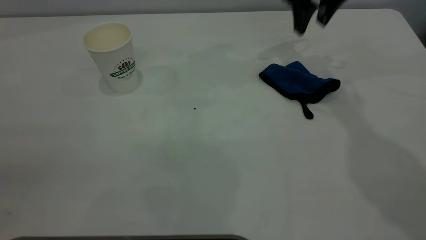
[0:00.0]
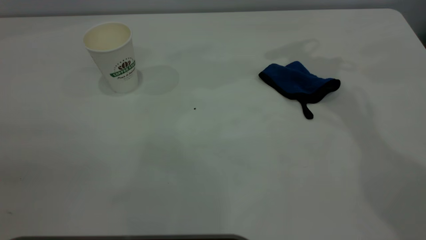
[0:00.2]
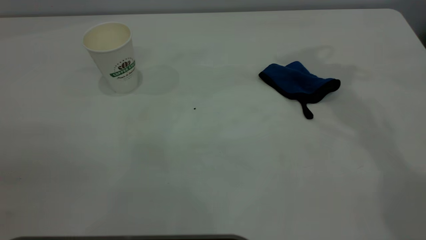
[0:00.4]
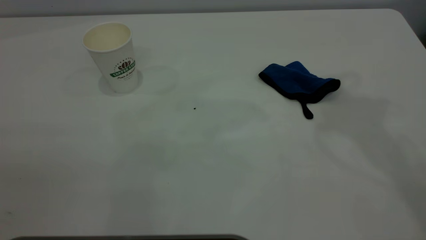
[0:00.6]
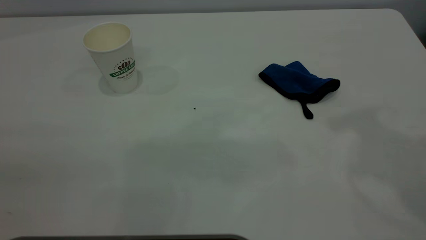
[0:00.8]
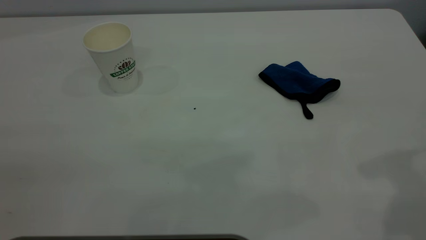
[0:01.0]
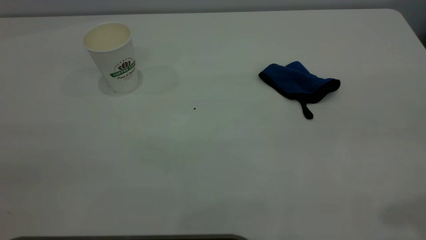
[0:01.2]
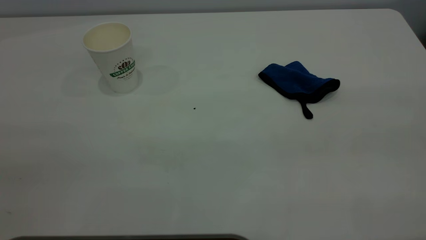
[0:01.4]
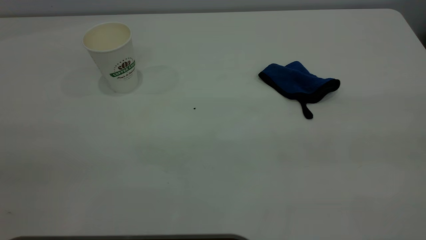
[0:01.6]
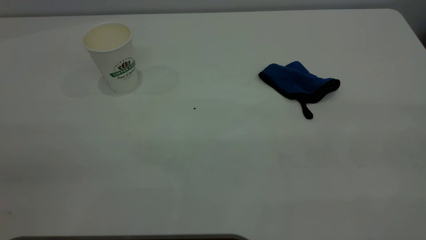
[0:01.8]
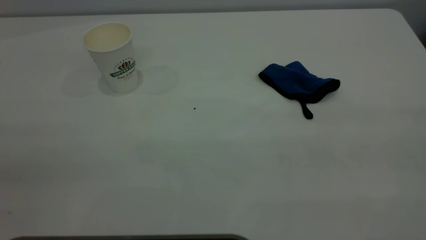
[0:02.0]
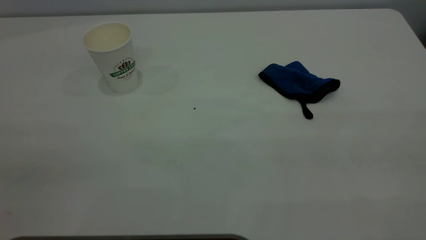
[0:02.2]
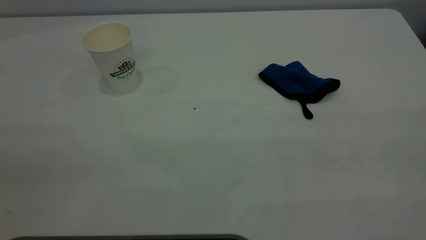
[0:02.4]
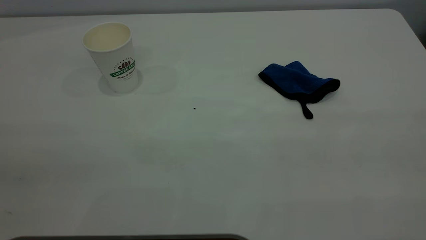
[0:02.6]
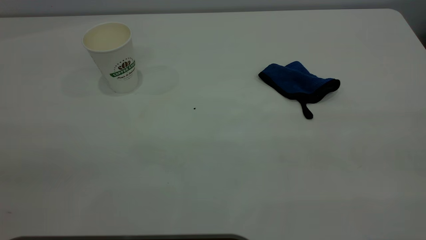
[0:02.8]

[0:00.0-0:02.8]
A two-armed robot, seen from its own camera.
Task of the whole recording: the left gripper pick up the fallen cup and place it upright, the right gripper grasp the blue rag and wipe the tea stain on the table, the right gripper put the blue rag back in its original position.
0:00.0 to 0:01.4: The right gripper travels backward by roughly 40 cm.

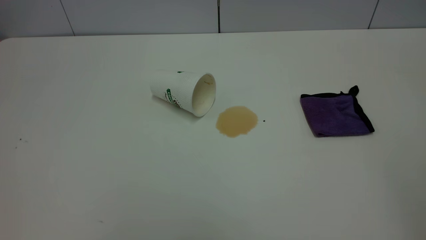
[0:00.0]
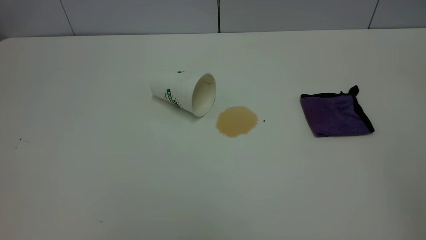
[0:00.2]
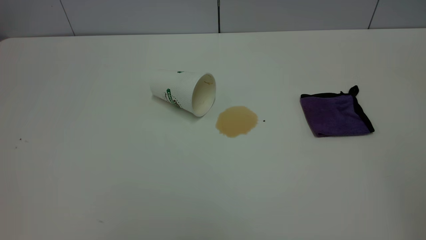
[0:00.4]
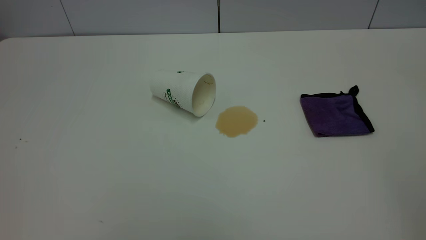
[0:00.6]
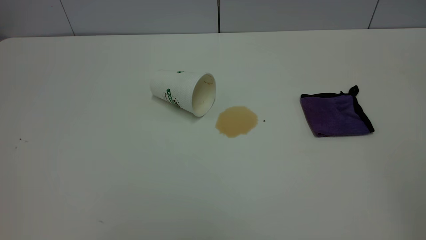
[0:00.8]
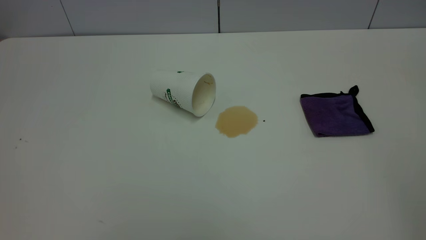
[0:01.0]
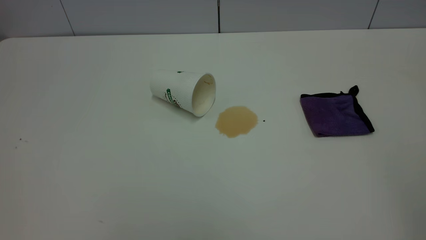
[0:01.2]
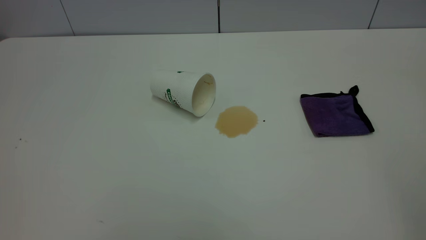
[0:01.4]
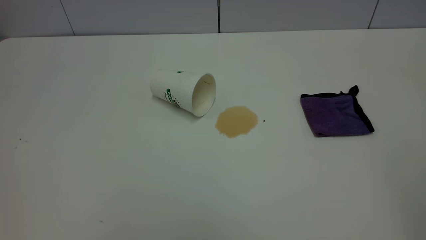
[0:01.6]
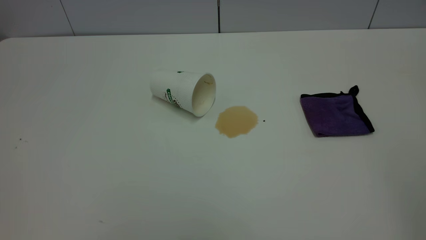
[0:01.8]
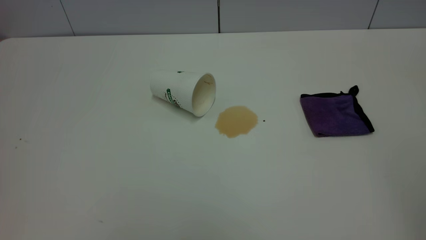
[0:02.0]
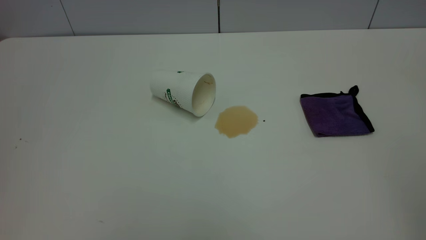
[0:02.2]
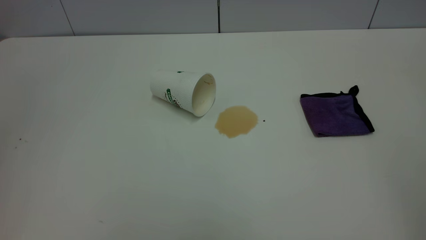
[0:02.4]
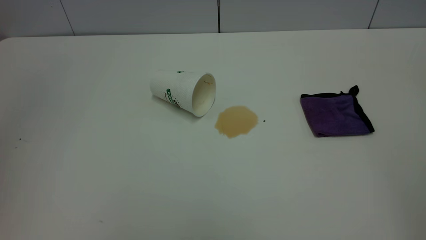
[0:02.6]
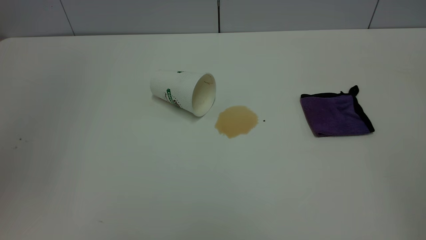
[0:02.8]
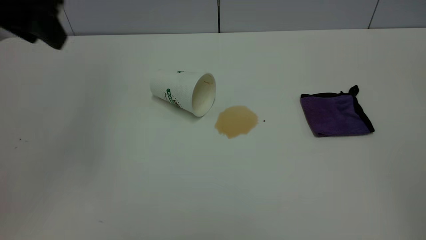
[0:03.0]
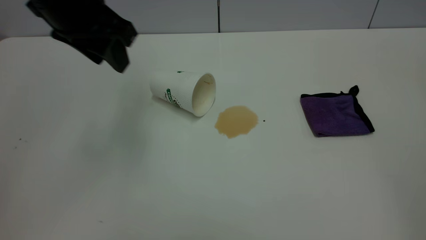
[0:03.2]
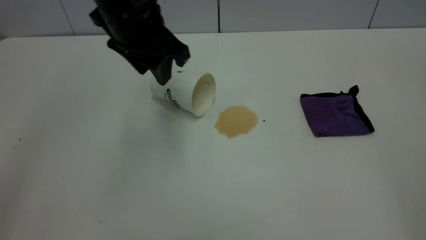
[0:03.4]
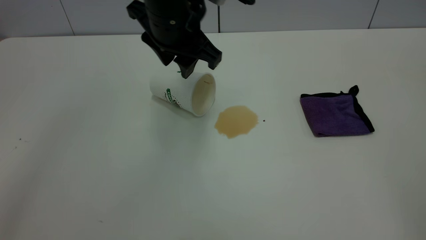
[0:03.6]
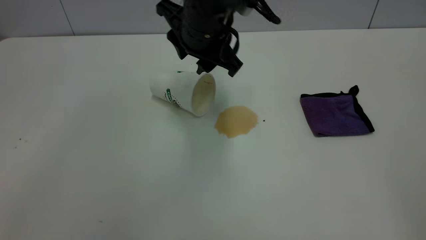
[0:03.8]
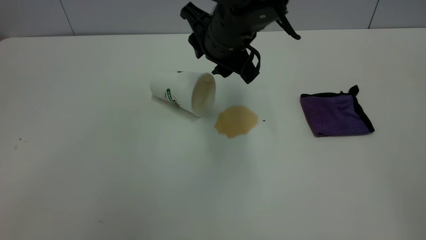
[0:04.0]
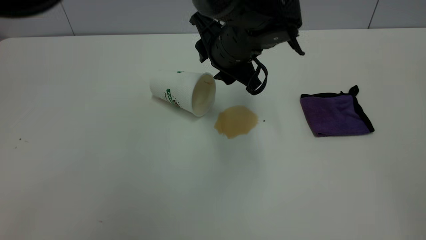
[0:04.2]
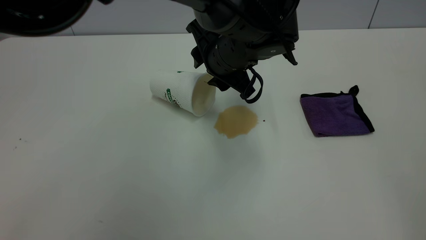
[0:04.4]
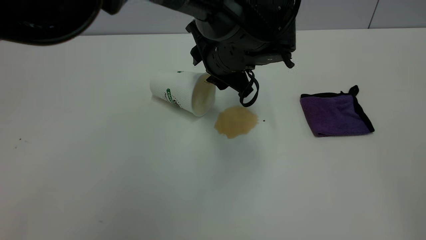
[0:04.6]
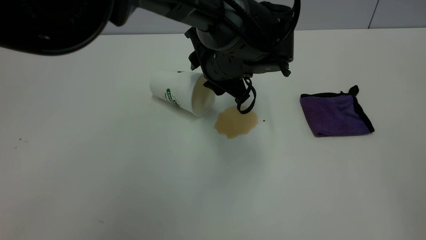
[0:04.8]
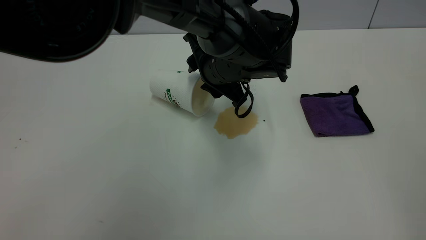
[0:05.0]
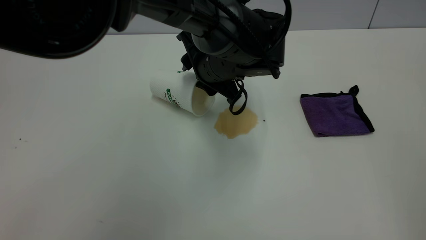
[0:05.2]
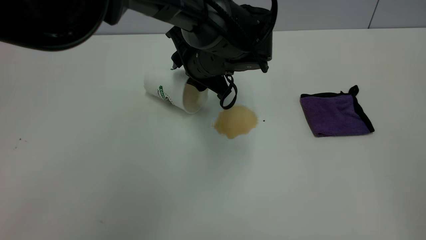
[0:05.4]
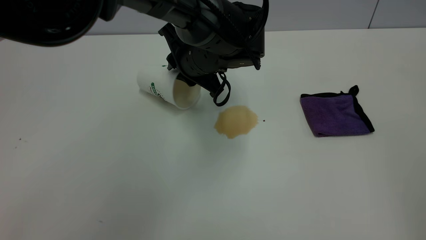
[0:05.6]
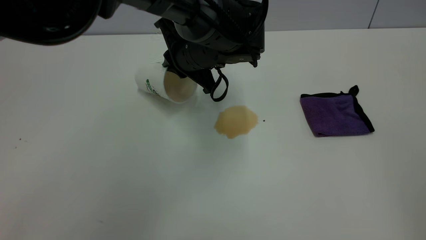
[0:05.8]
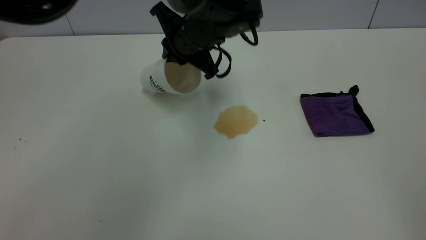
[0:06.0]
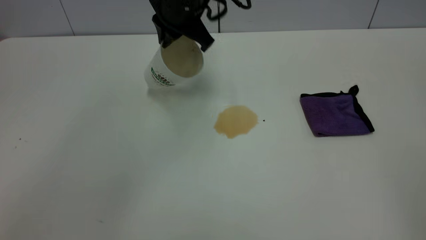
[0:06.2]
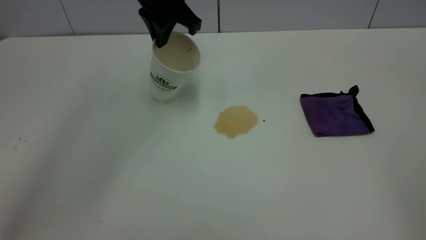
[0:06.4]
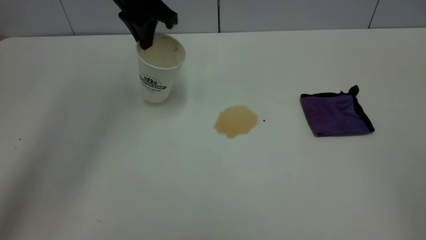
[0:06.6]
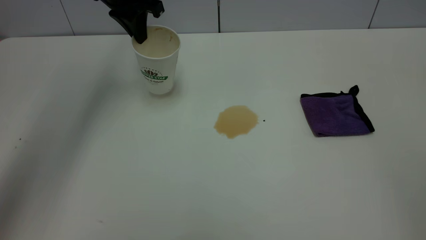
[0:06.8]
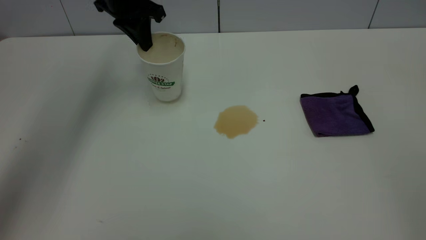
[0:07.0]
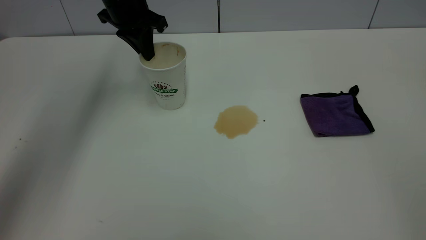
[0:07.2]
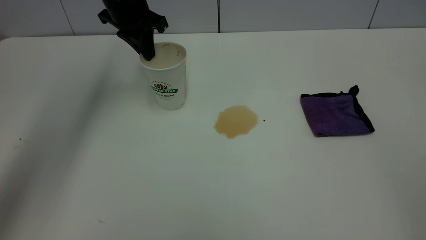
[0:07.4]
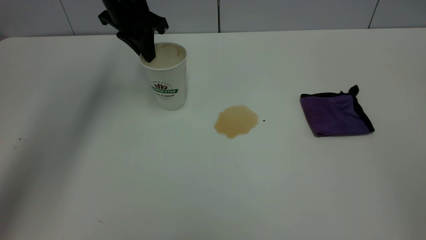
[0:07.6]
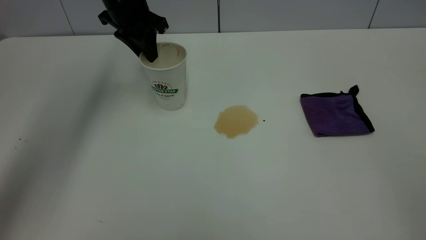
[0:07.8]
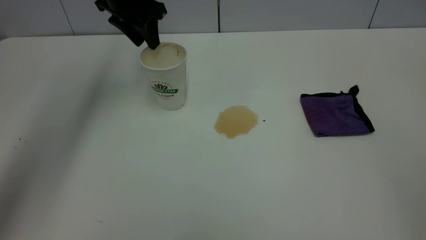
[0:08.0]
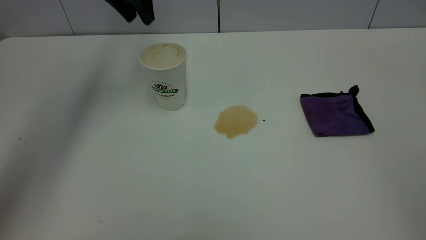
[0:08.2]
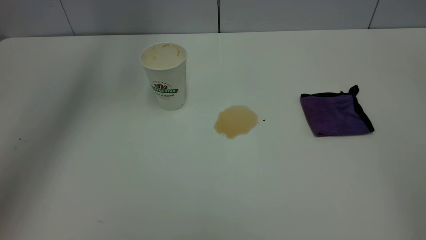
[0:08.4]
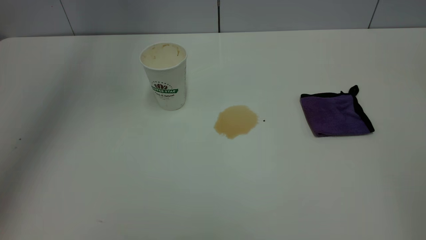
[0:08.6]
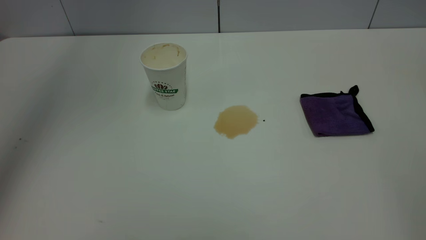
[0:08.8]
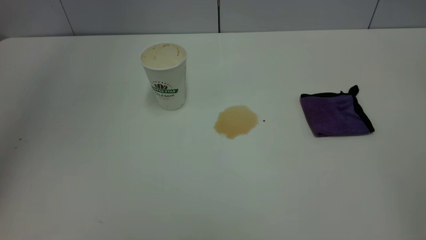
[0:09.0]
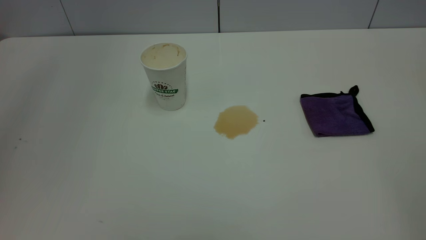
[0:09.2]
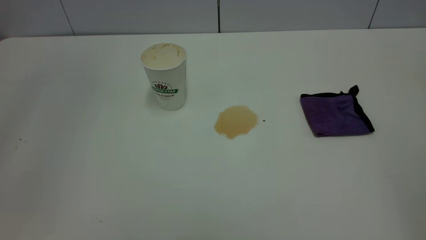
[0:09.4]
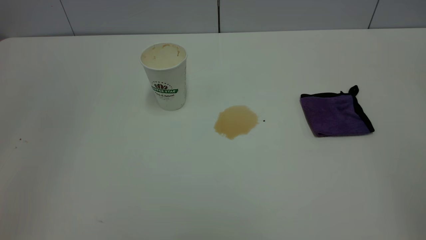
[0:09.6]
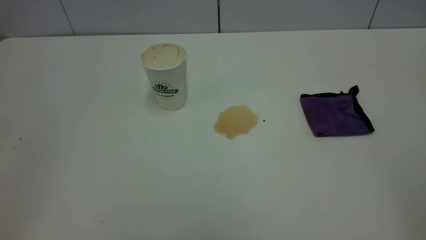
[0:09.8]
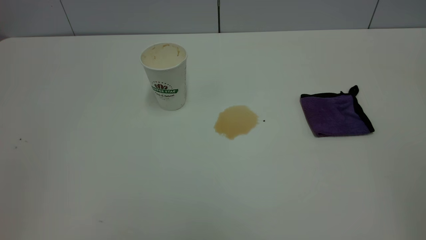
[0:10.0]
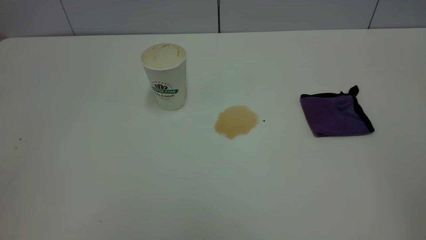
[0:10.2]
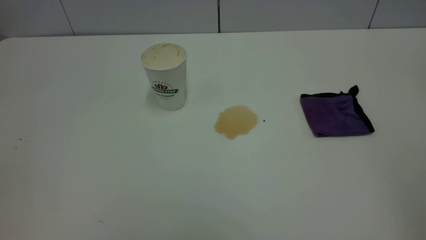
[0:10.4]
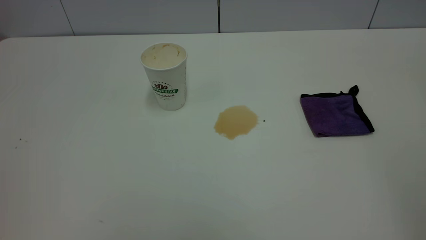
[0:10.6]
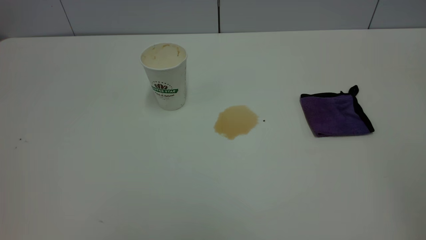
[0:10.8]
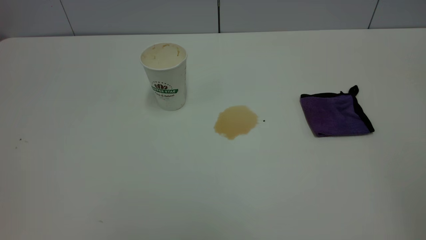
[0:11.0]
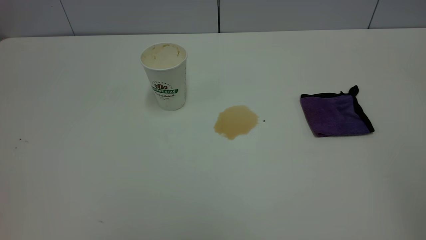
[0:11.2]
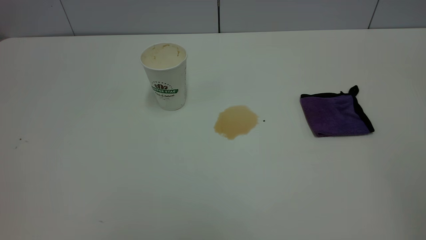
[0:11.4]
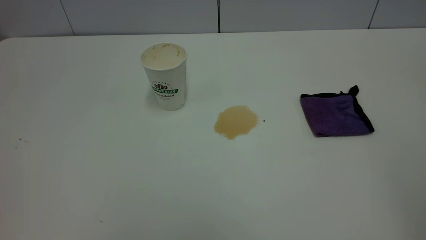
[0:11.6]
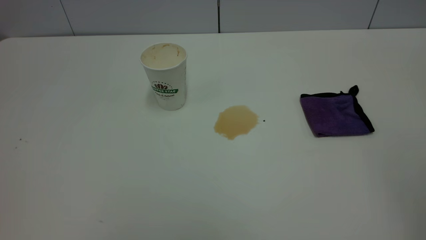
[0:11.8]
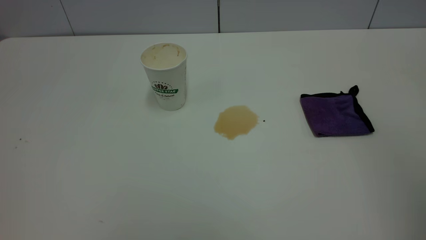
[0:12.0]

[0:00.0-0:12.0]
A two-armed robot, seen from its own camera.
Task of the whole recording: the left gripper pick up the fallen cup and place it upright, the right gripper grasp the purple rag and wipe the tea stain on the table, the right gripper put the purple rag back in its original position.
Step, 0:00.0 to 0:08.0: Stand the paper cup upright.
0:00.0 to 0:01.6: Both grippers stay put.
0:01.6 to 0:03.0: The left gripper goes approximately 30 cm forward.
0:03.0 to 0:04.4: The left gripper moves to the right and downward, about 30 cm.
0:04.4 to 0:06.0: The left gripper travels to the left by about 5 cm, and closes its fingers.
0:06.0 to 0:07.6: The left gripper shifts about 15 cm to the left and forward.
0:07.6 to 0:09.0: The left gripper travels upward and backward by roughly 35 cm, and opens up.

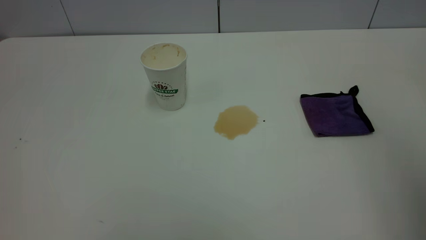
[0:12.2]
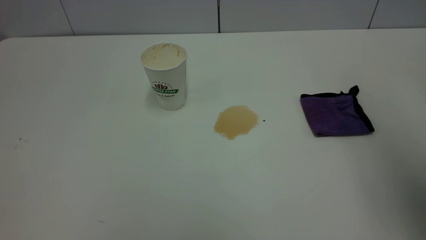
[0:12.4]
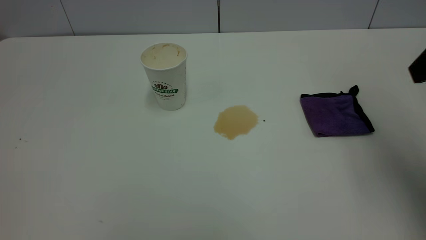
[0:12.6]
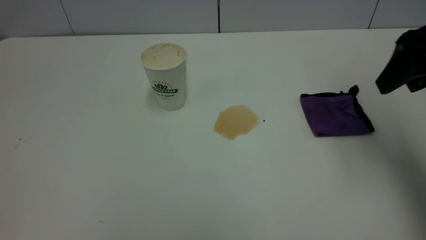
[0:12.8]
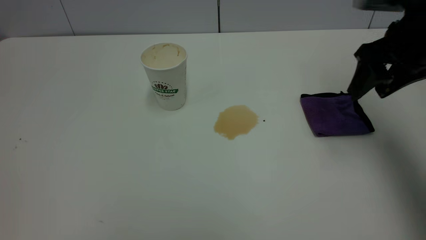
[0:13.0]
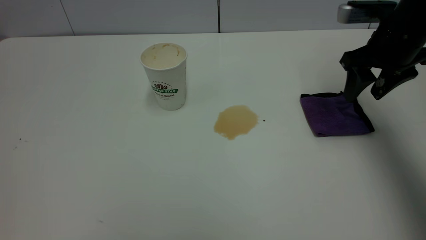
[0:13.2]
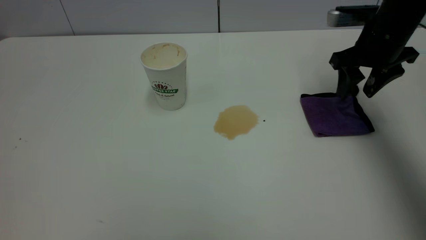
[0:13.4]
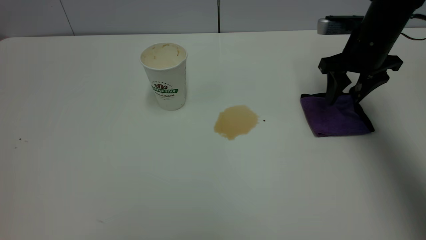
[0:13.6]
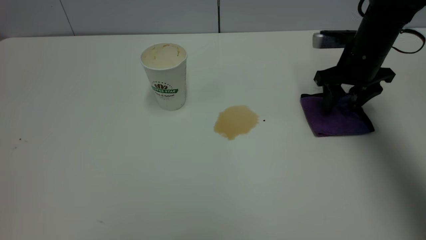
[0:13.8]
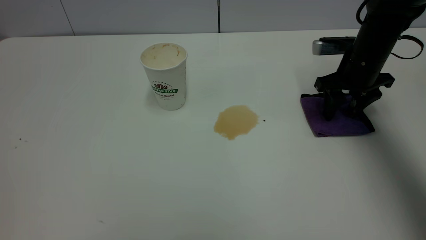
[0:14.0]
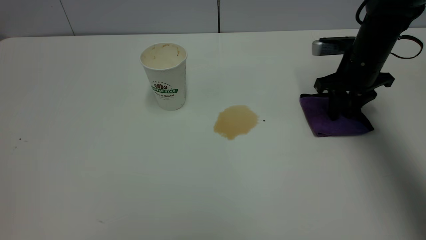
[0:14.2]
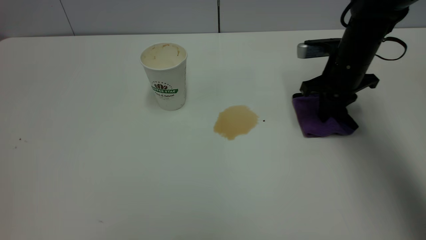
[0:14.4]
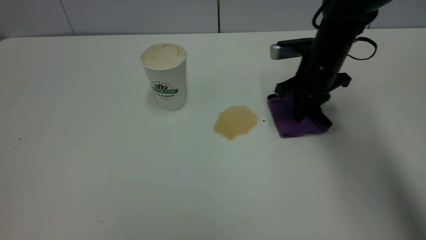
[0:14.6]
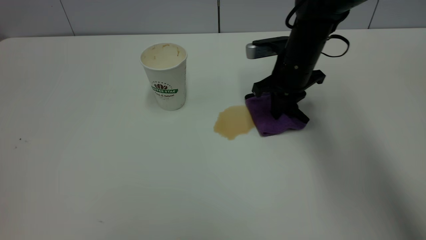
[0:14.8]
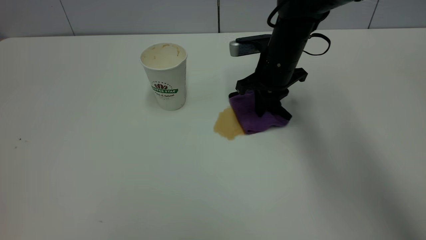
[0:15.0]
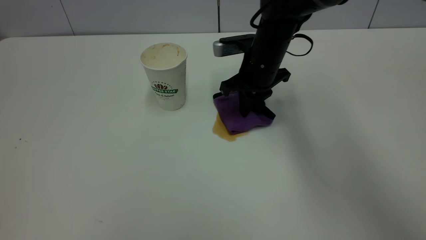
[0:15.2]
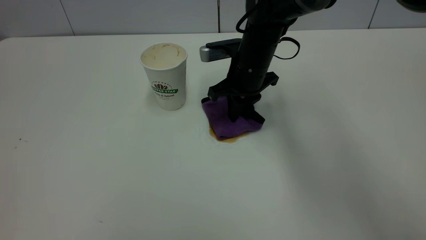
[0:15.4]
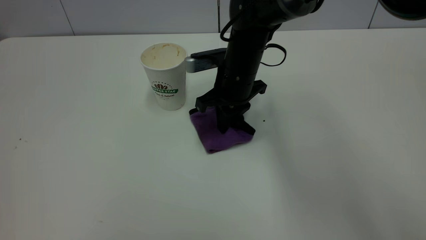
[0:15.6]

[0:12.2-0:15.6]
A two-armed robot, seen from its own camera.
Task of the whole recording: the left gripper pick up the fallen cup and place it upright, the right gripper grasp the purple rag and wipe the tea stain on the table, the right gripper put the purple rag back in its original position.
0:12.2 to 0:13.8: The right gripper is displaced forward and downward by roughly 40 cm.
0:13.8 to 0:15.6: The right gripper moves to the left, about 20 cm, and closes up.
